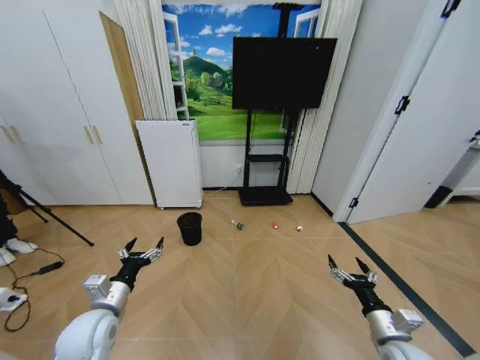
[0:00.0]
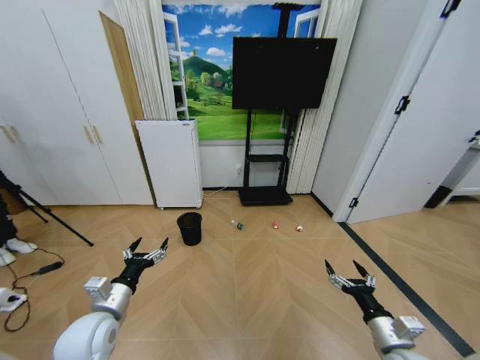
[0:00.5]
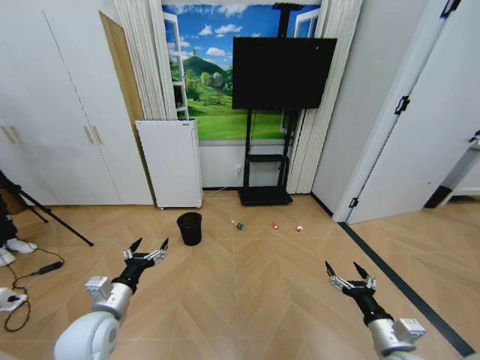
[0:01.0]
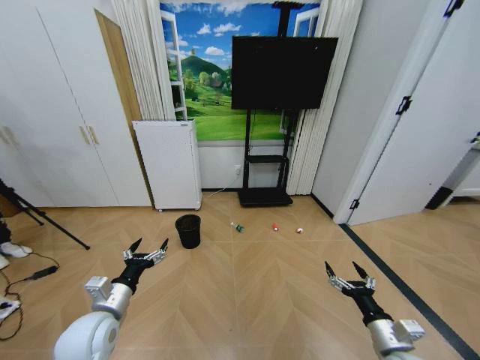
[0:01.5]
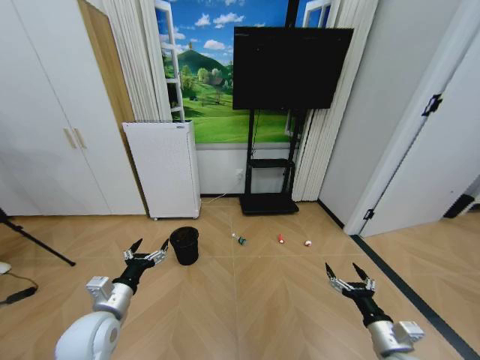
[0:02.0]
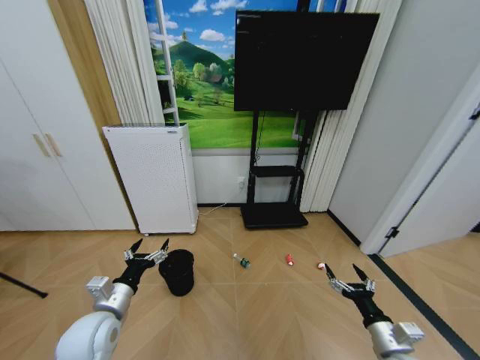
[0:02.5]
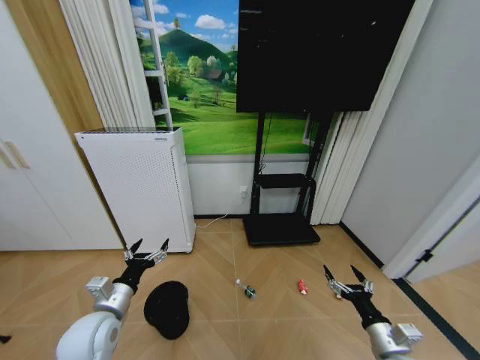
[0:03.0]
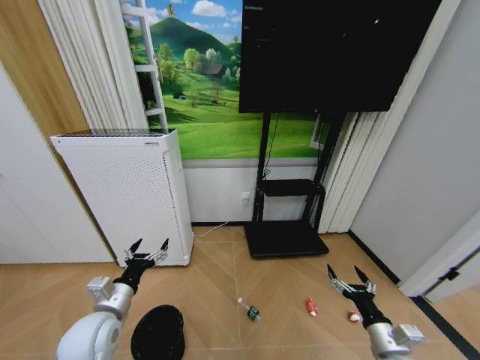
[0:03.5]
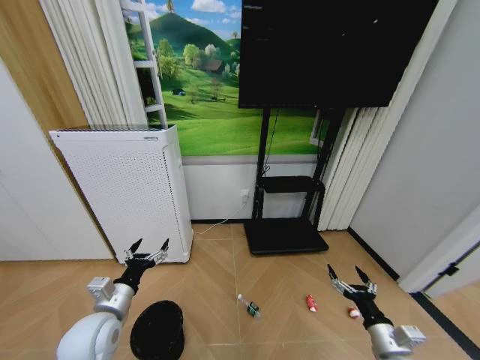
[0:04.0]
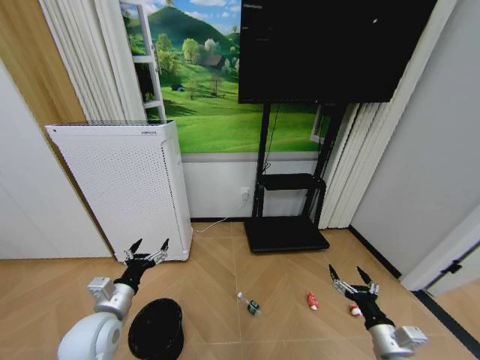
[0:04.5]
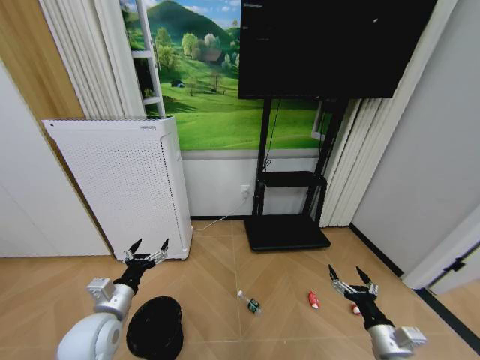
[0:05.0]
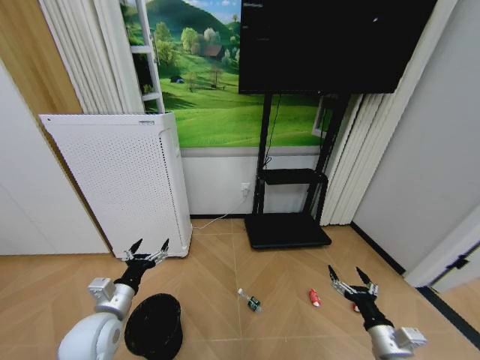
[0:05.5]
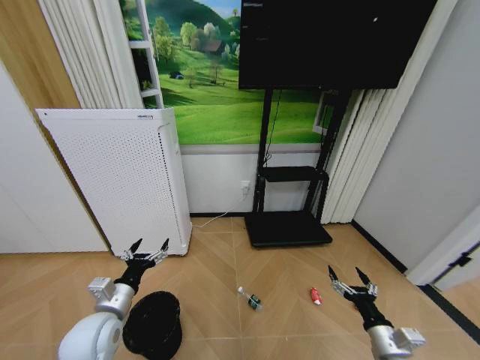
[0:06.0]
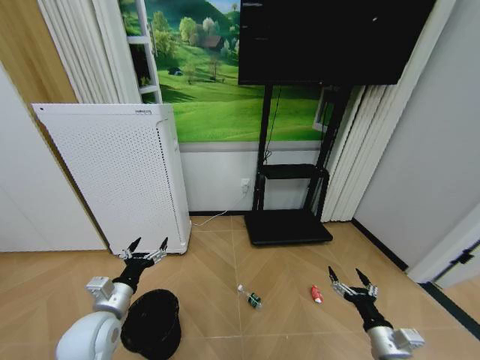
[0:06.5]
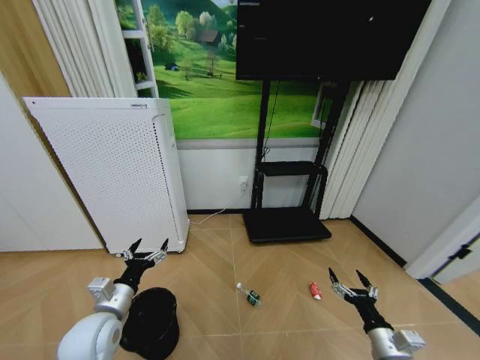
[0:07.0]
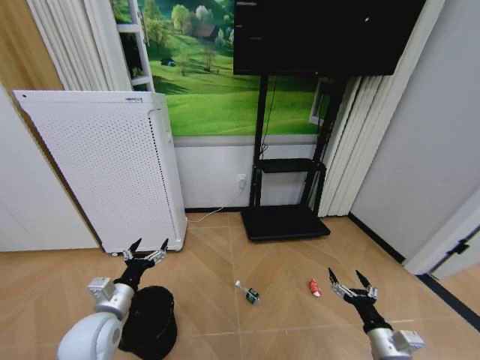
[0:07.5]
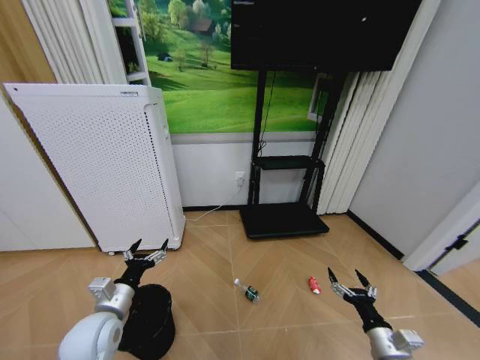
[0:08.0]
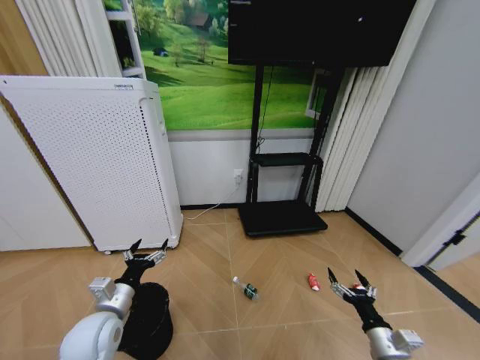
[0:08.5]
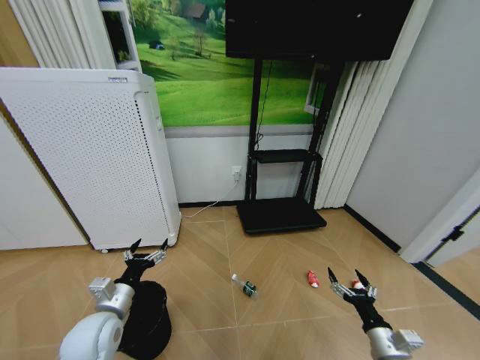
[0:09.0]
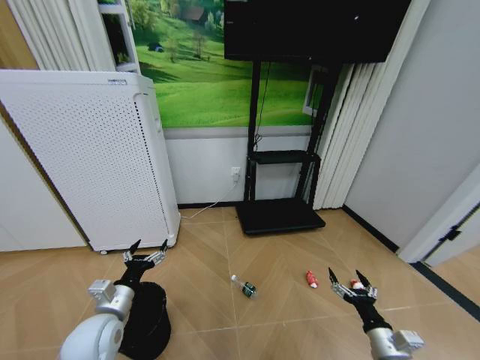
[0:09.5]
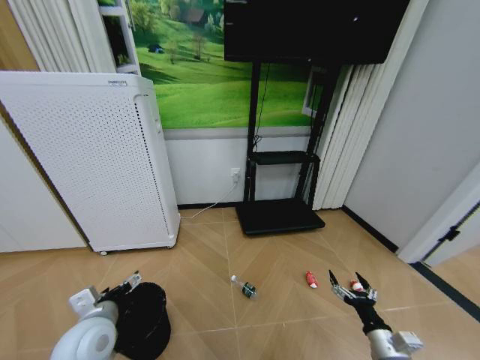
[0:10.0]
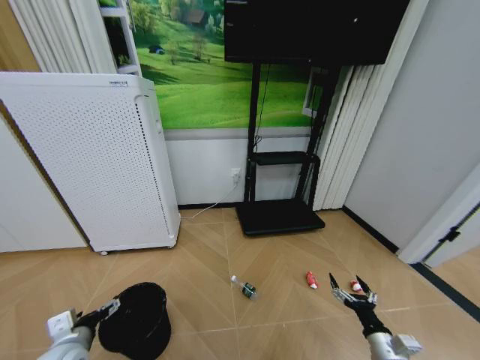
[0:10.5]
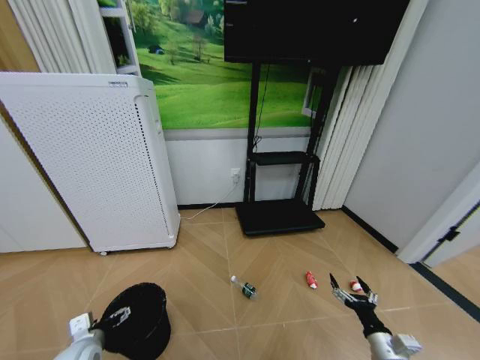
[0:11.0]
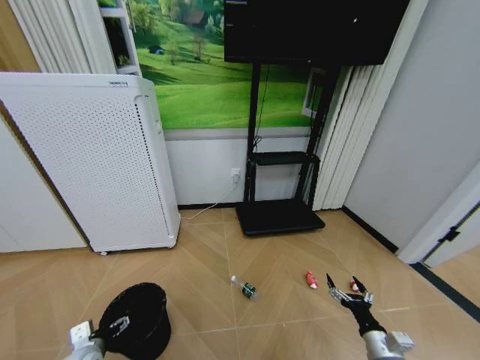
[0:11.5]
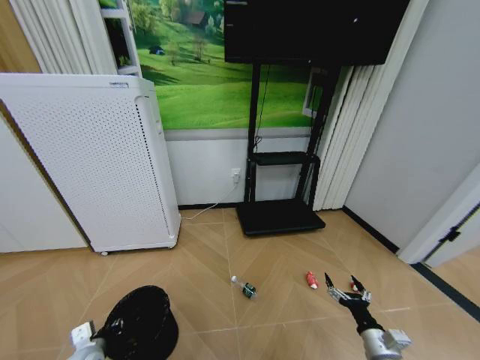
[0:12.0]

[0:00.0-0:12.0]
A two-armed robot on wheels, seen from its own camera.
Task of the whole recording: Pick up the trash bin and place the garbage on the floor into it.
0:04.0 to 0:06.0: Neither gripper changes place.
0:10.0 to 0:12.0: The left gripper is displaced downward and to the left by roughly 15 cm, and closes its fingers.

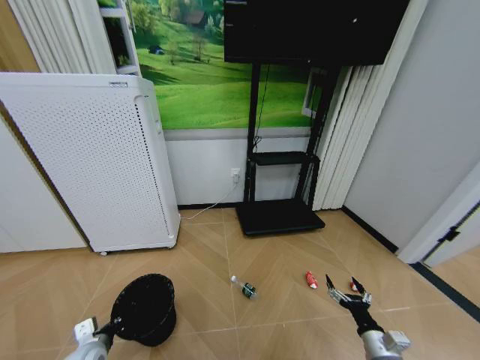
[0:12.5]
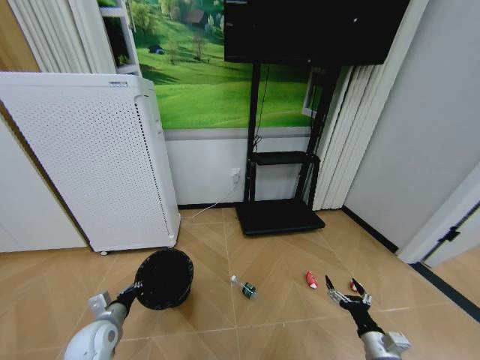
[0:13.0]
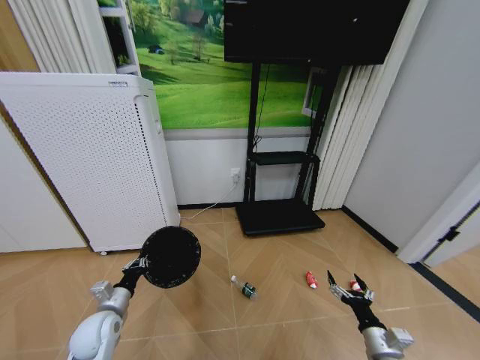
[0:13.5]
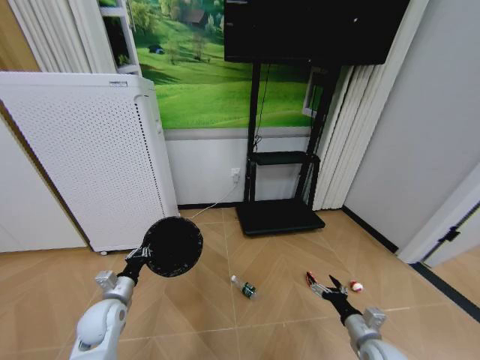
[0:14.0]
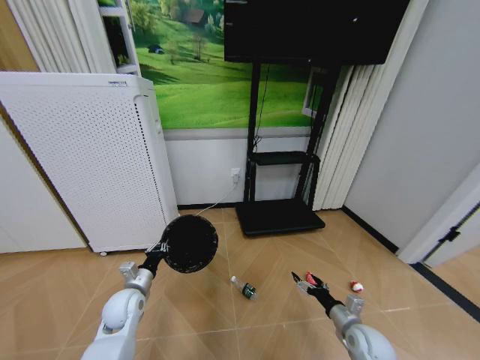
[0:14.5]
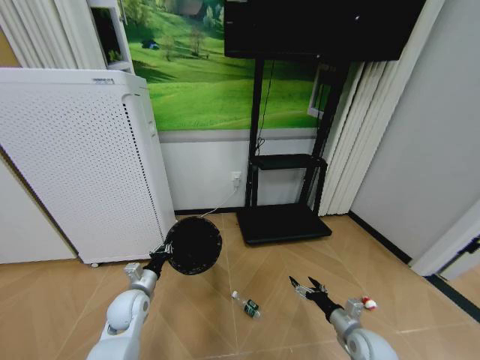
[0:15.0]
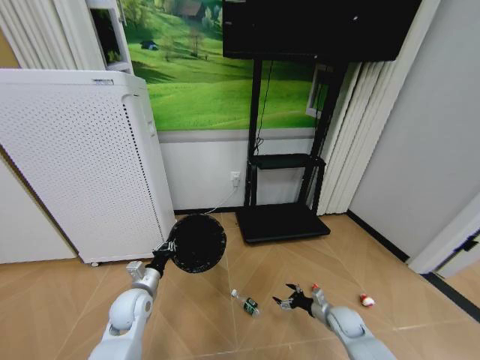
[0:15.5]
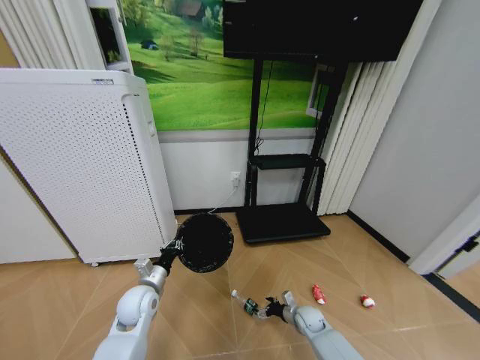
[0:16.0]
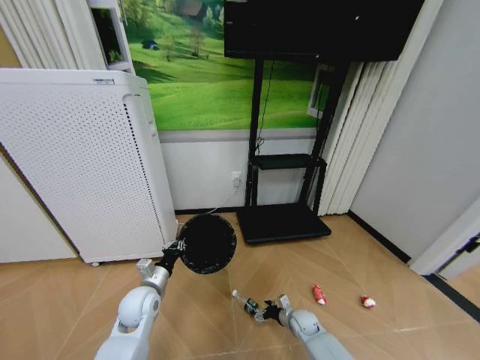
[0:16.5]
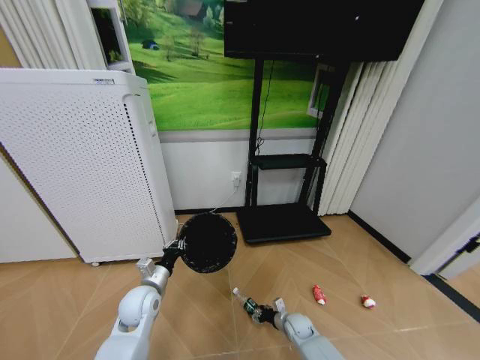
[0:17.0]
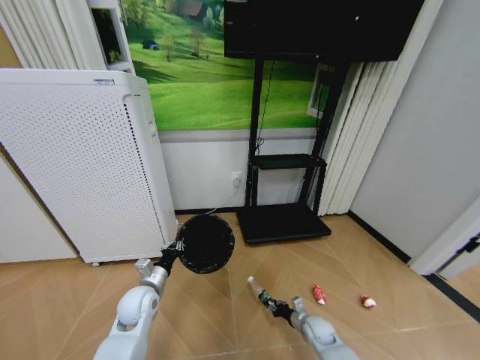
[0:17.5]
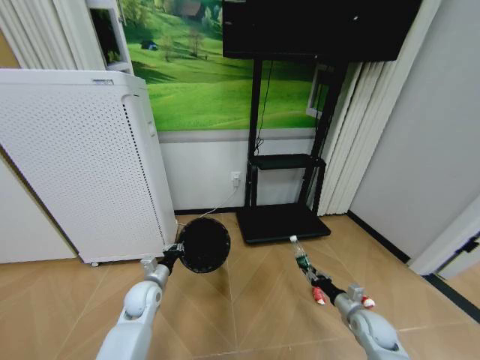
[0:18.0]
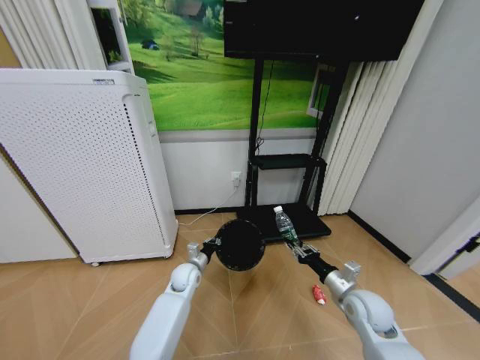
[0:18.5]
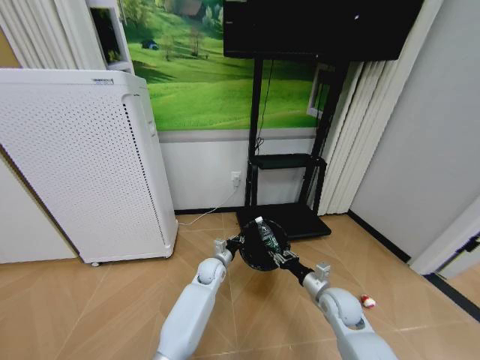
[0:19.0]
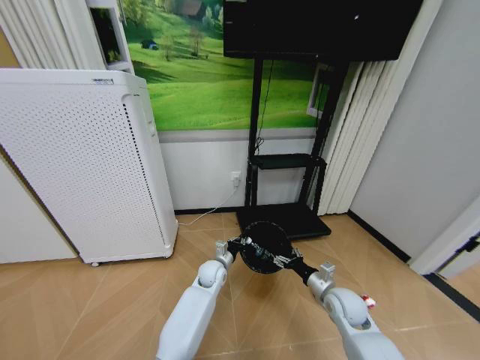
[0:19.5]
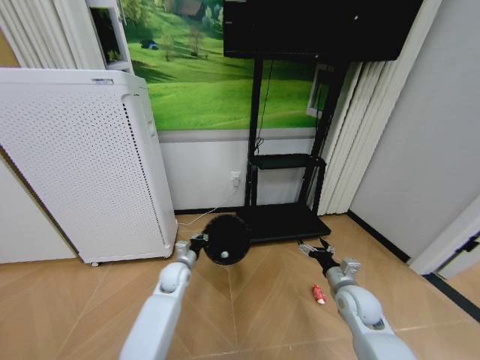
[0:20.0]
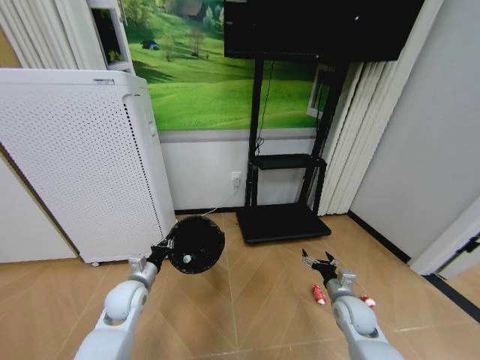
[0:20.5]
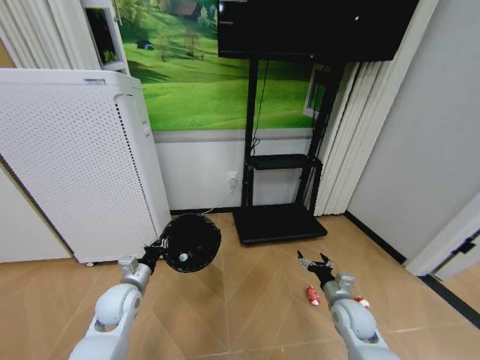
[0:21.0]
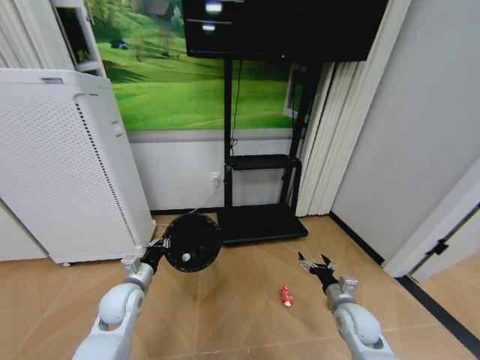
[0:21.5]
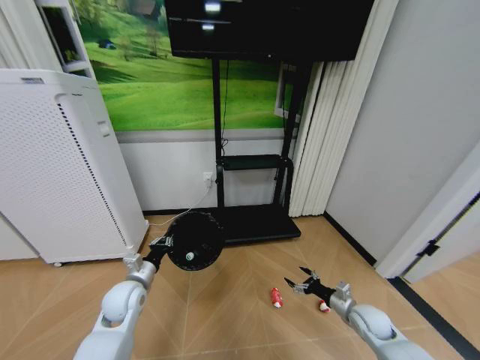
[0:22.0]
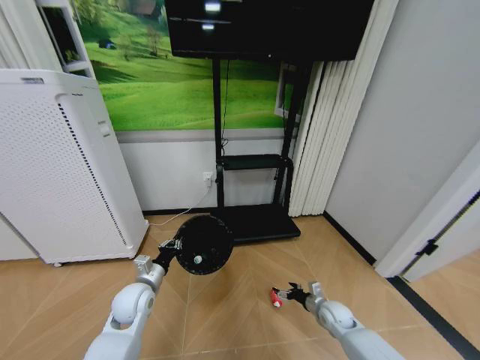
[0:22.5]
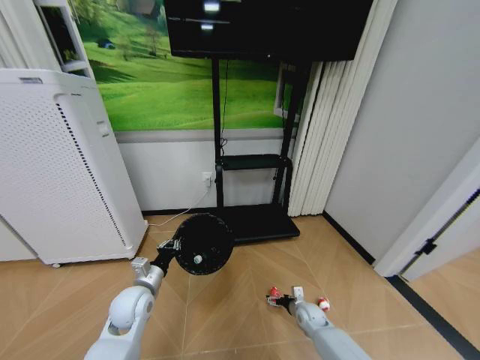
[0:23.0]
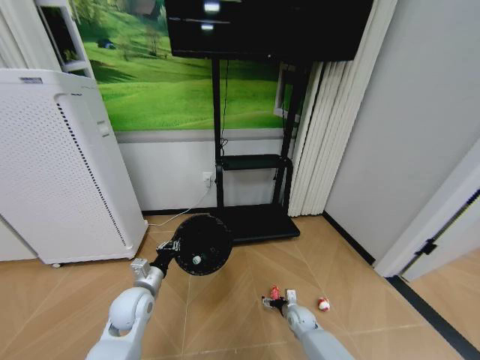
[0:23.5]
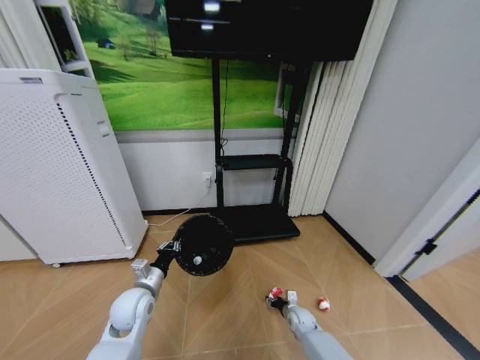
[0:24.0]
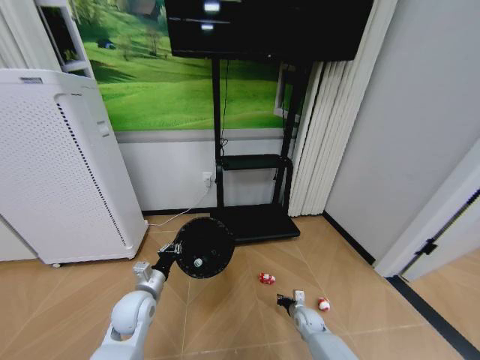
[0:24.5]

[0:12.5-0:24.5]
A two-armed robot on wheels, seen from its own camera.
Task of the whole recording: Pick up the trash bin and place the garbage on the floor into it.
0:12.5 to 0:14.5: The right gripper moves forward, approximately 5 cm. Meanwhile the left gripper shifts approximately 15 cm forward and to the right.
0:14.5 to 0:16.5: The right gripper heads downward, forward and to the left, covering approximately 20 cm; the left gripper is displaced to the right by roughly 5 cm.
0:16.5 to 0:18.5: The left gripper shifts some 15 cm forward, to the right and downward. The right gripper heads upward, covering approximately 25 cm, and closes.
0:18.5 to 0:20.5: The right gripper heads downward, covering approximately 5 cm, and opens up; the left gripper shifts approximately 15 cm to the left, backward and upward.
0:20.5 to 0:22.5: The right gripper is displaced downward by about 10 cm.
0:22.5 to 0:24.5: The right gripper heads downward and to the left, covering approximately 10 cm, and closes.

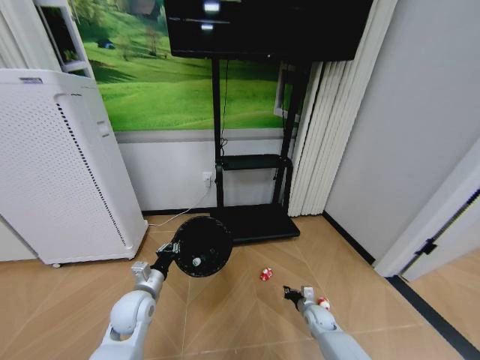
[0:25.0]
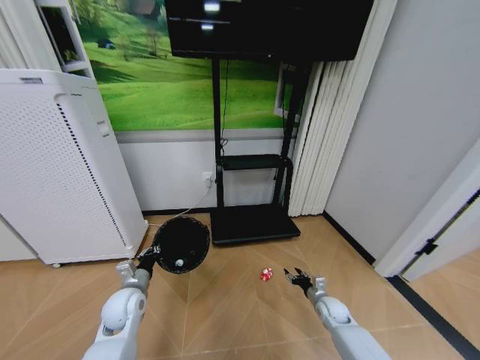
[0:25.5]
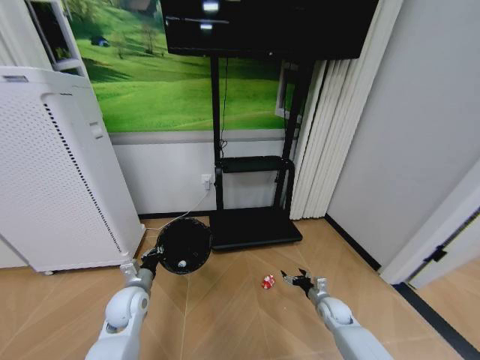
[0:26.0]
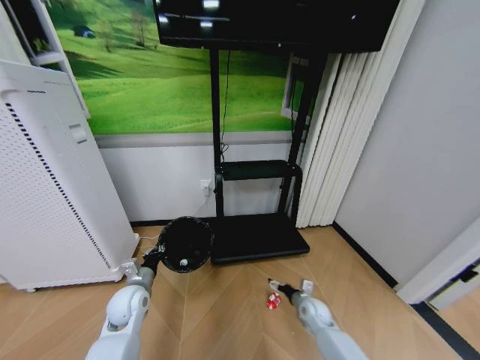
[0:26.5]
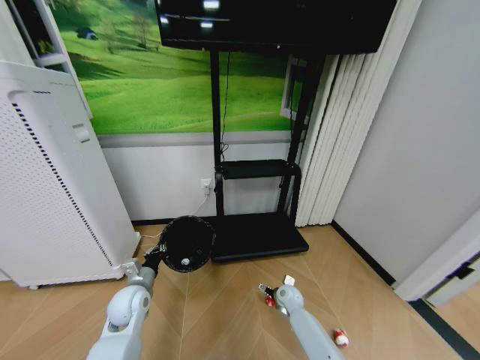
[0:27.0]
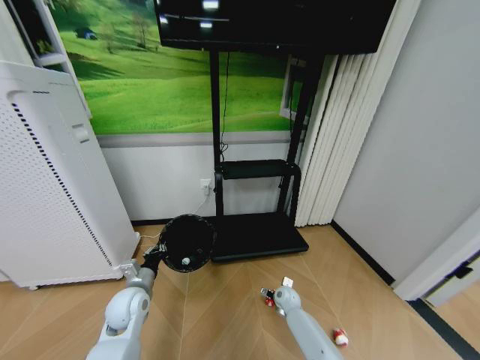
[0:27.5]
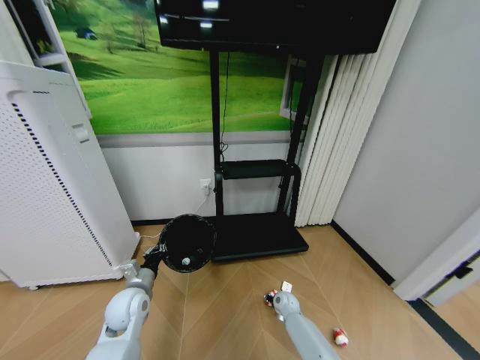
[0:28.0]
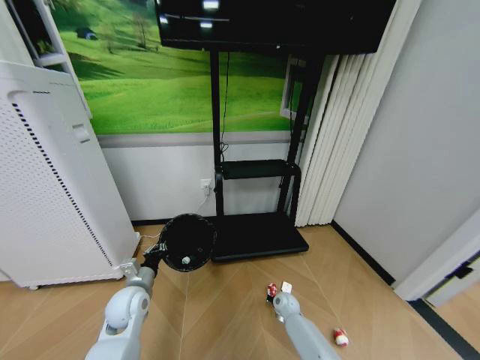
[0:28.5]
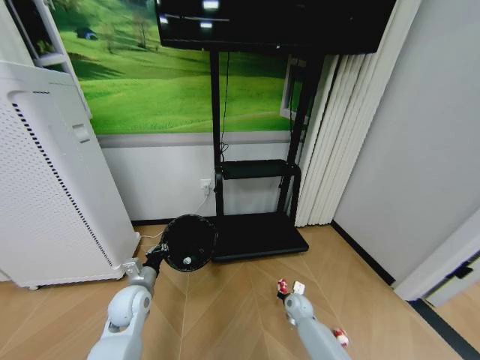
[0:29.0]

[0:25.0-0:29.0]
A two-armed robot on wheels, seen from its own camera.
Task of the whole recording: Pick up the trash bin and place the garbage on the floor into it.
0:25.0 to 0:27.0: The right gripper goes about 10 cm to the left and forward, and opens its fingers.
0:27.0 to 0:29.0: The right gripper closes its fingers.
